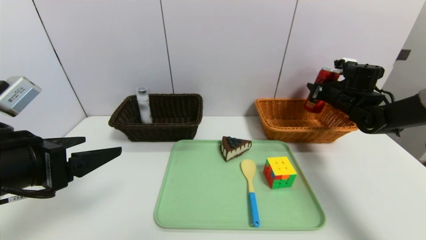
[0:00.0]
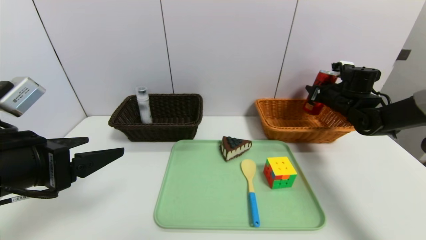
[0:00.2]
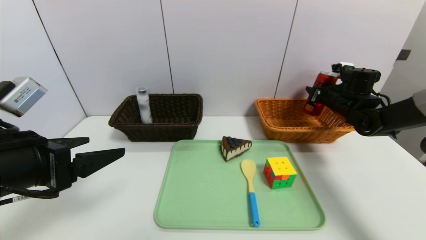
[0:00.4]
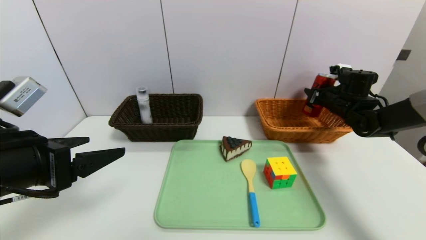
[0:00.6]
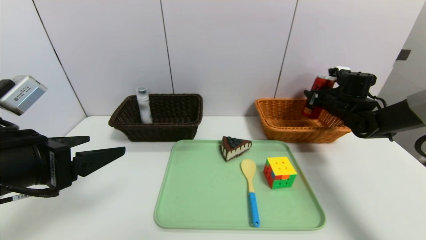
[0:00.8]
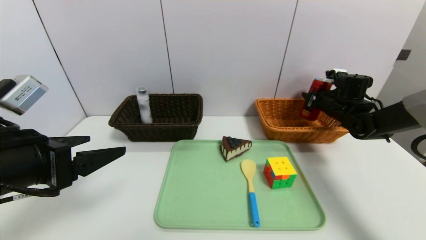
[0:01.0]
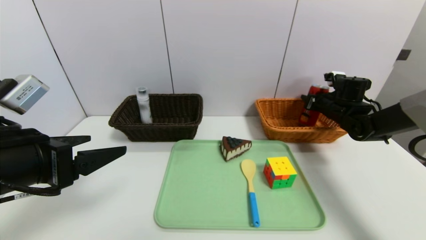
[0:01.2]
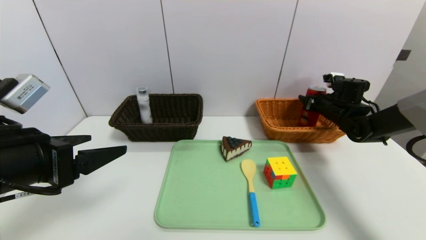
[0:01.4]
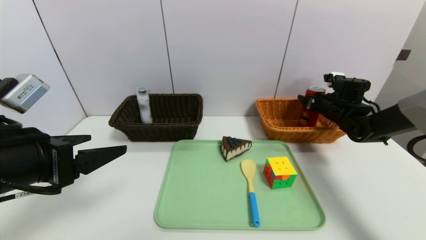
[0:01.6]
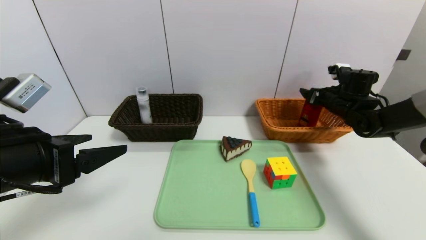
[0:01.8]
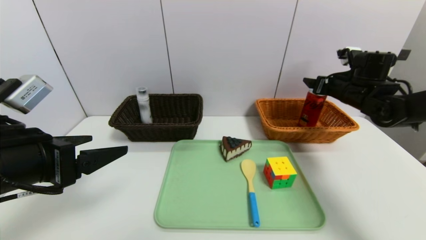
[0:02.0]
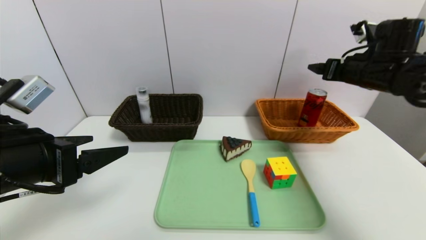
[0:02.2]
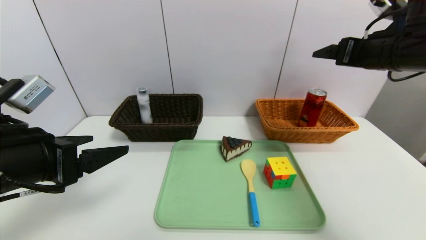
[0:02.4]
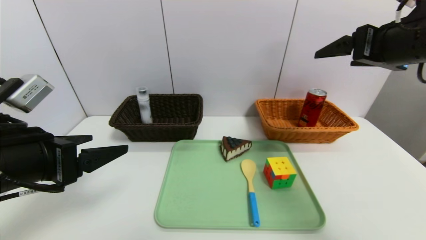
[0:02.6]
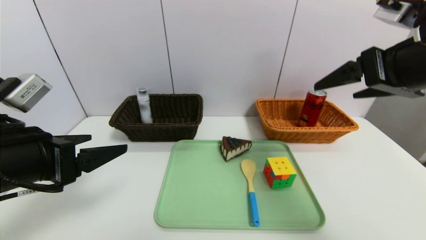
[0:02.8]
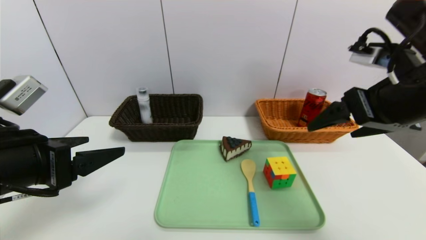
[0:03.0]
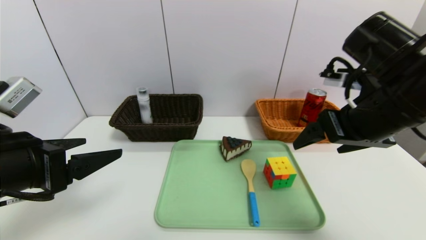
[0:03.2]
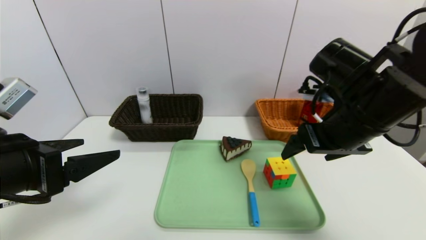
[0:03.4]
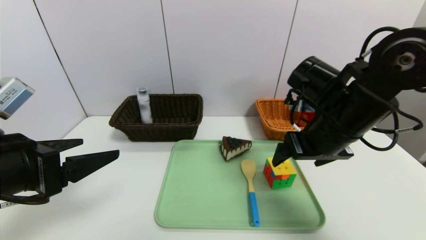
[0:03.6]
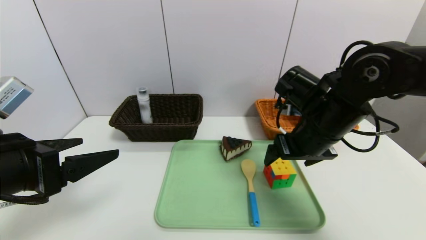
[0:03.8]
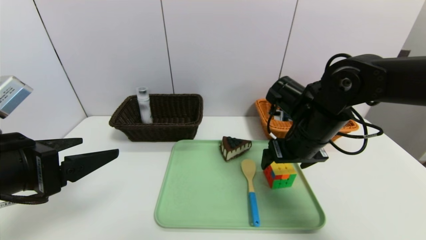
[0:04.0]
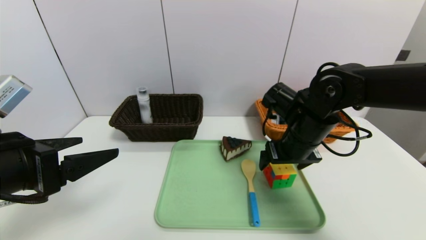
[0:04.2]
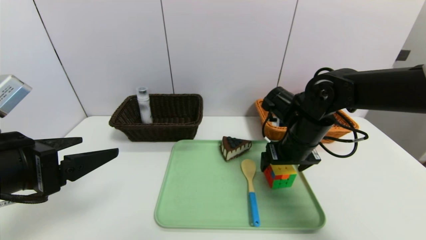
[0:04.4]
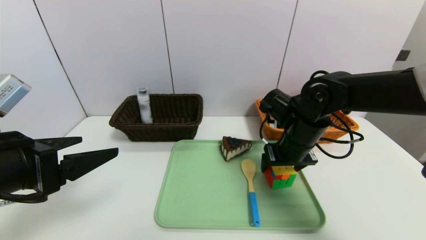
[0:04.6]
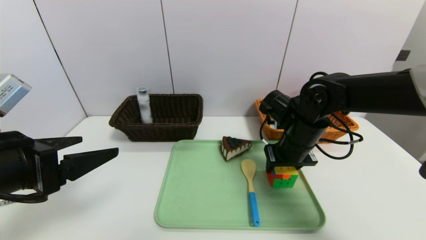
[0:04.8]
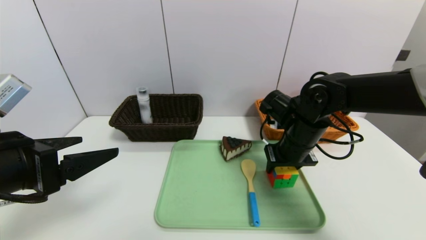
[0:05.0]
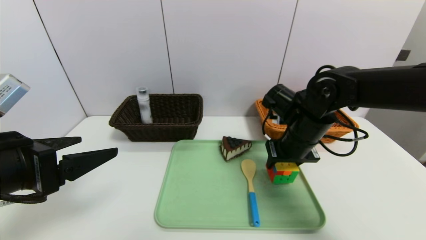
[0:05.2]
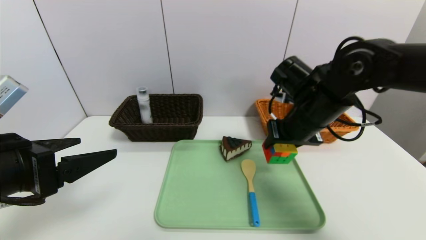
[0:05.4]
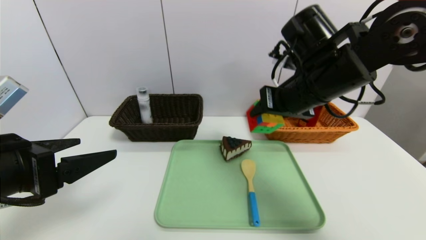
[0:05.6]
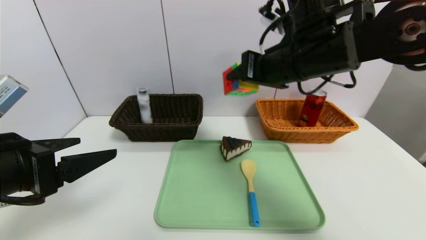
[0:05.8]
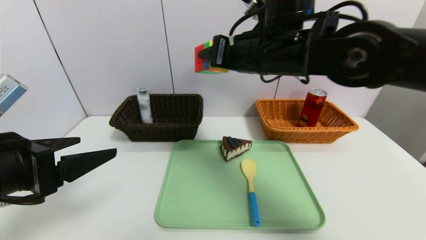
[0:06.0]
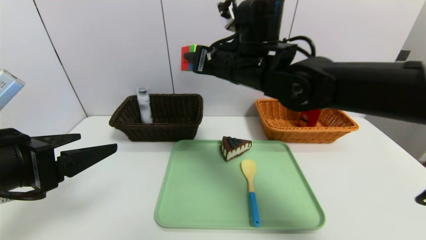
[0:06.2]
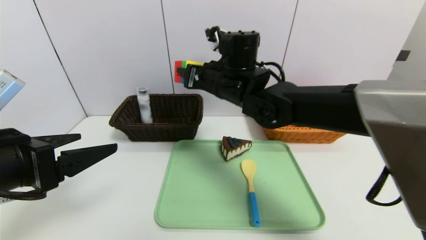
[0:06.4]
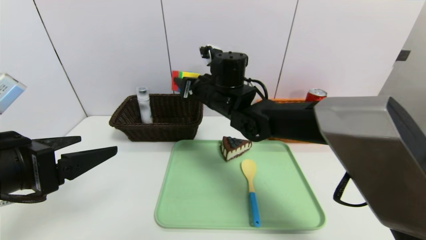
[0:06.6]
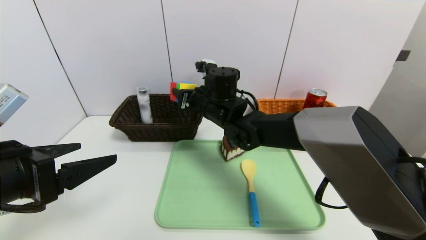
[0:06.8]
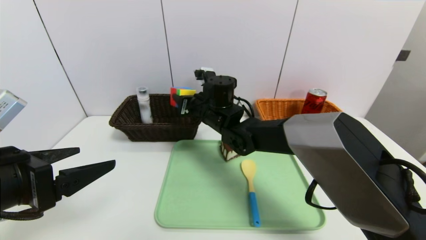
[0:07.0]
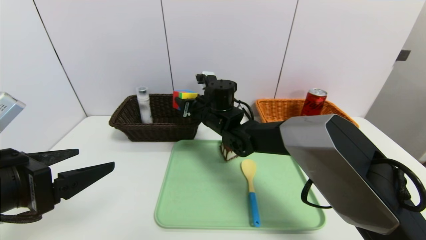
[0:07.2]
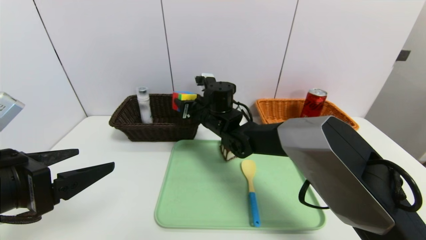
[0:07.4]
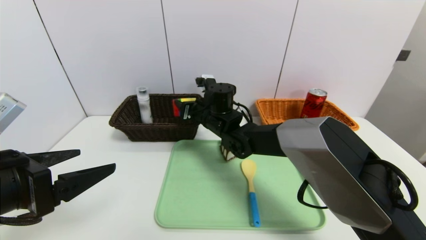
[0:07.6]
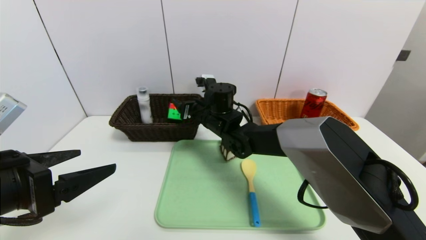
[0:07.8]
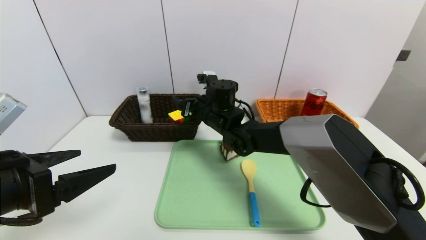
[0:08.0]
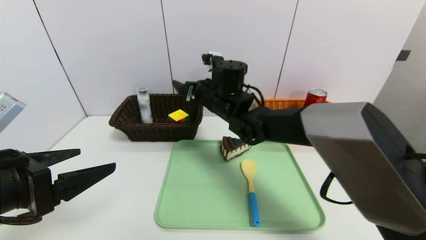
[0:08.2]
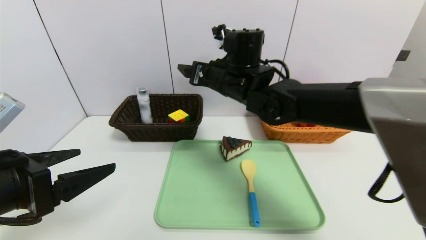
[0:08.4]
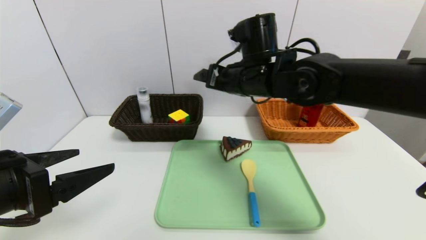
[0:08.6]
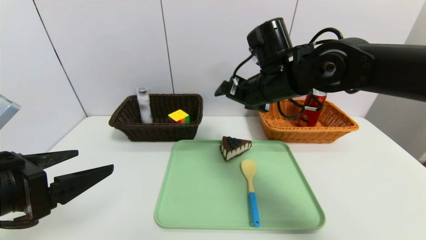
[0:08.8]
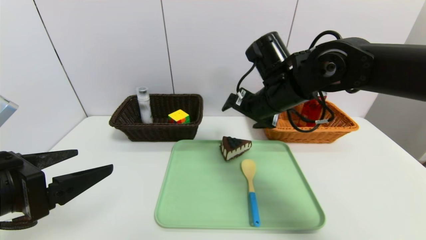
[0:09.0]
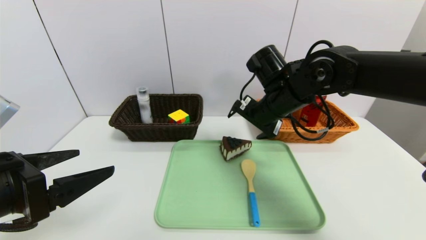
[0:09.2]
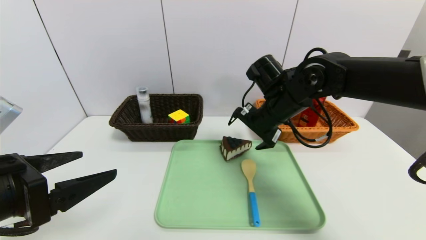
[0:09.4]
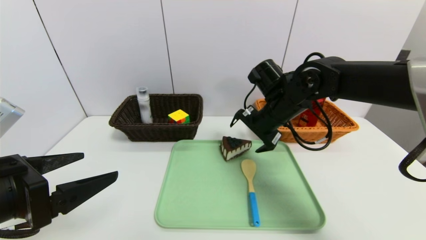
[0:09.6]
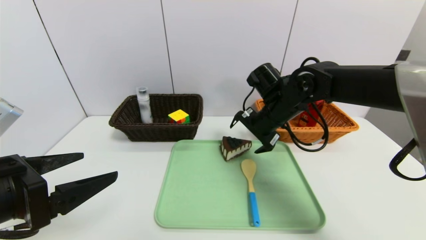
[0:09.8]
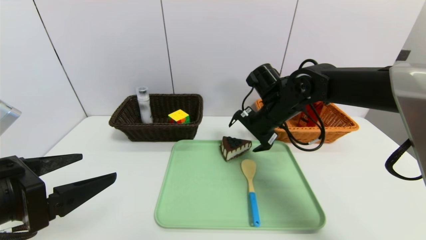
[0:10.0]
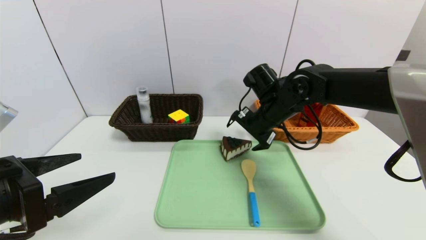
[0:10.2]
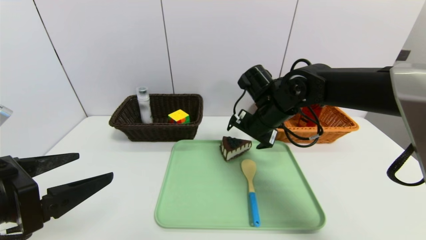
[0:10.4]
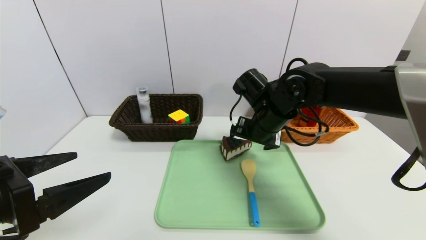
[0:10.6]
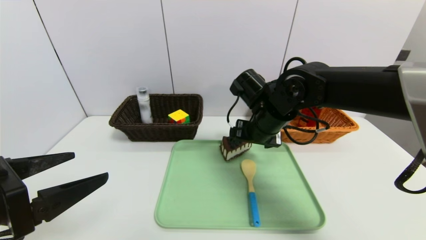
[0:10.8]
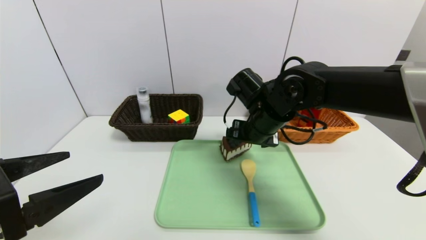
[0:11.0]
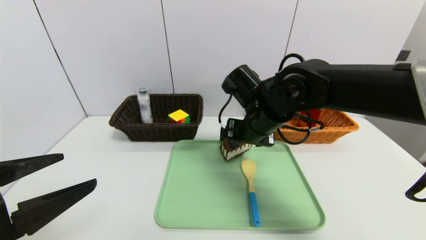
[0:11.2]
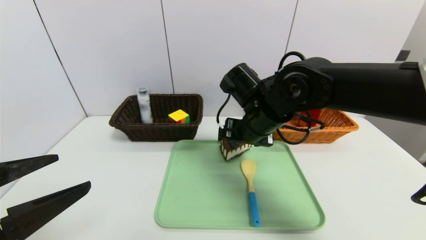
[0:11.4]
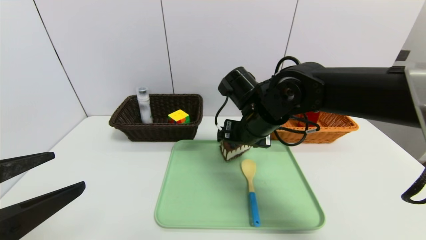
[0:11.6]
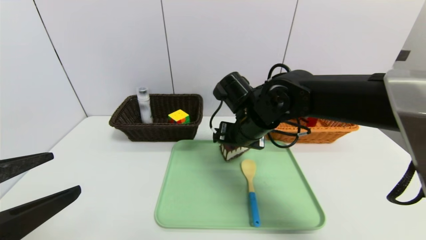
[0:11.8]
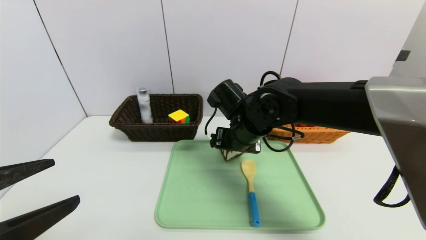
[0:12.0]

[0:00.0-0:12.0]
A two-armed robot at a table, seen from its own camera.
Task of the whole recording: place the food in the right basket with the right gripper, and place the non food items in the left basket with the left gripper.
Step, 0.0 to 2.0 s: Grasp the canned cola and put it in the right basket.
0.0 to 1.6 s: The right gripper opens its fingers.
1.6 to 3.0 s: The right gripper goes approximately 30 cm backward, upward and to the left.
3.0 to 4.4 s: The right gripper is displaced downward, forward and to the left by some 20 cm.
4.4 to 6.0 s: The right gripper goes approximately 20 cm upward and to the left, and closes.
6.0 to 7.6 s: The right gripper goes roughly 20 cm downward, forward and to the left.
7.6 to 9.0 s: The right gripper is displaced to the right, upward and backward by about 15 cm, and opens its fingers.
9.0 to 10.4 s: The right gripper shifts roughly 5 cm downward.
10.4 to 12.0 s: The right gripper shifts approximately 5 cm to the left.

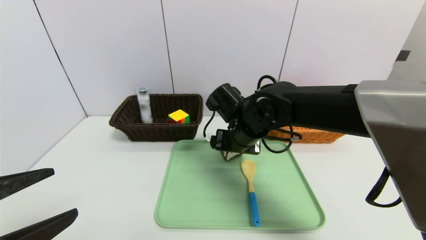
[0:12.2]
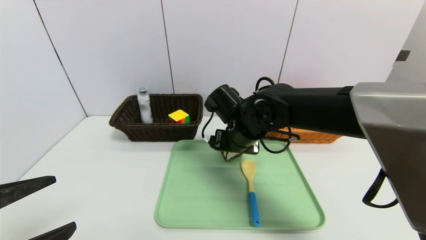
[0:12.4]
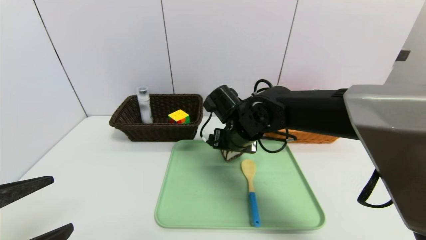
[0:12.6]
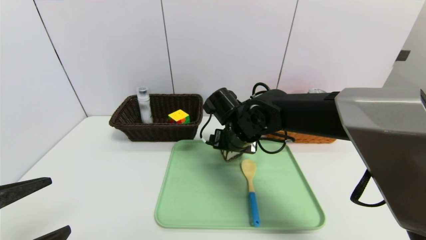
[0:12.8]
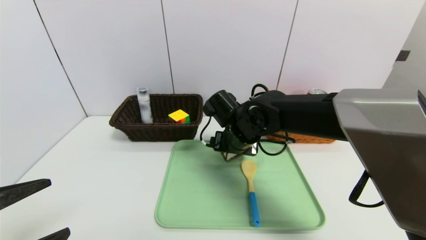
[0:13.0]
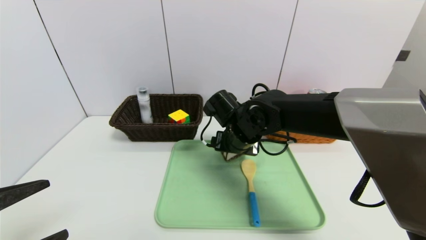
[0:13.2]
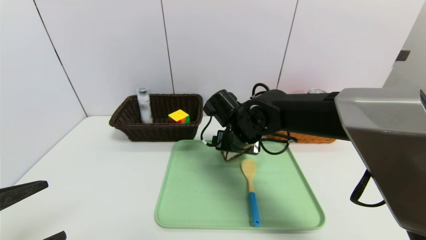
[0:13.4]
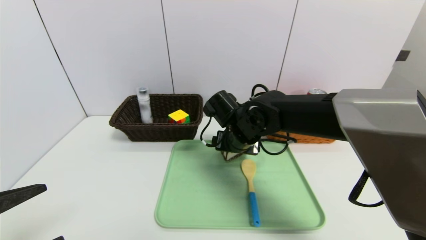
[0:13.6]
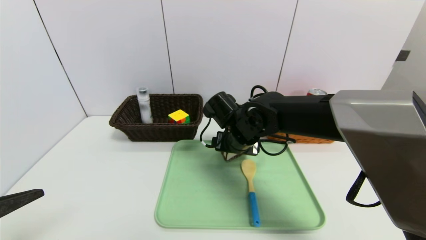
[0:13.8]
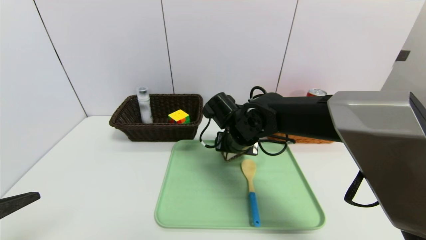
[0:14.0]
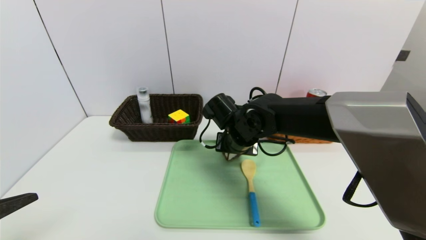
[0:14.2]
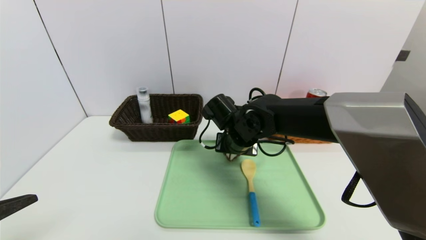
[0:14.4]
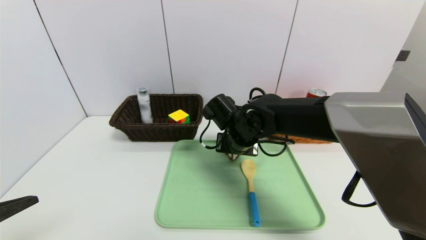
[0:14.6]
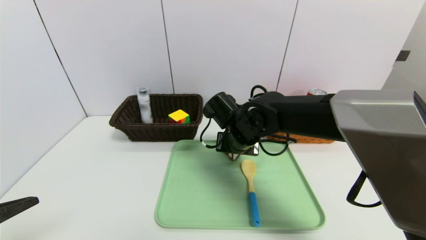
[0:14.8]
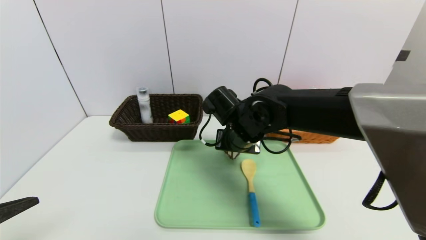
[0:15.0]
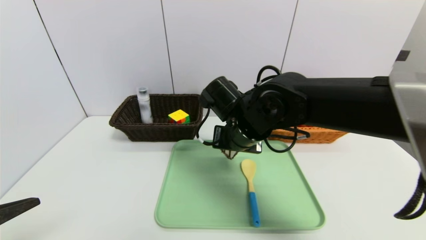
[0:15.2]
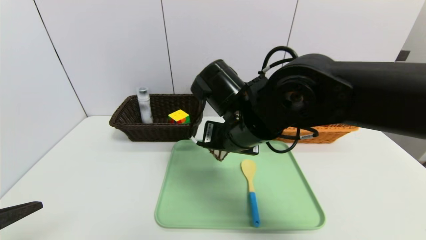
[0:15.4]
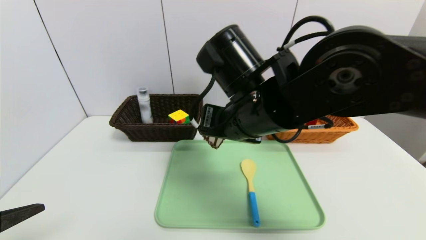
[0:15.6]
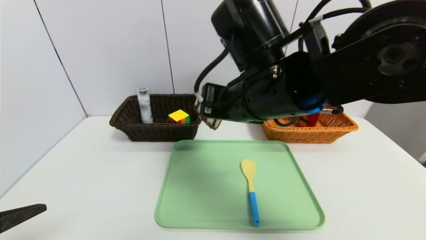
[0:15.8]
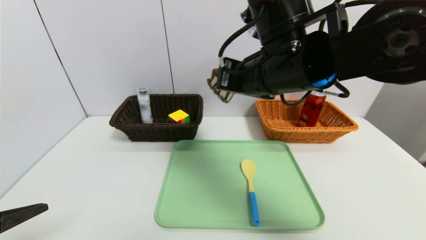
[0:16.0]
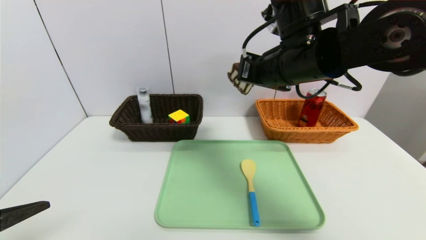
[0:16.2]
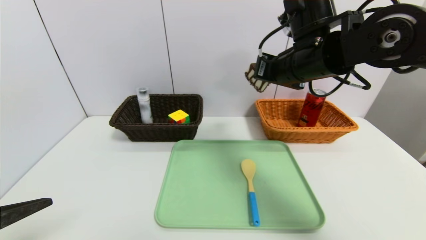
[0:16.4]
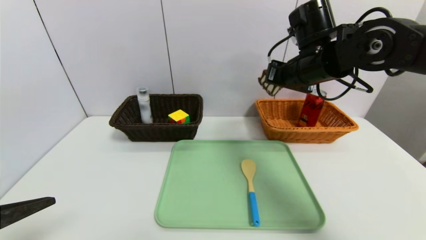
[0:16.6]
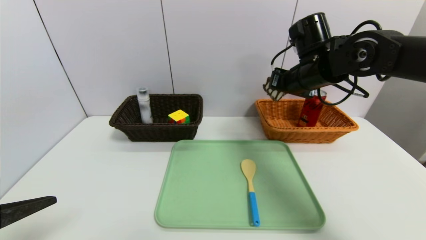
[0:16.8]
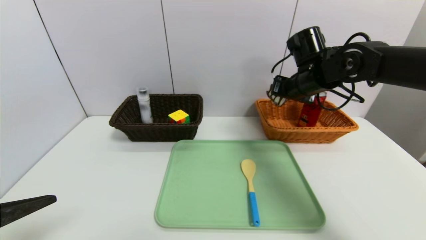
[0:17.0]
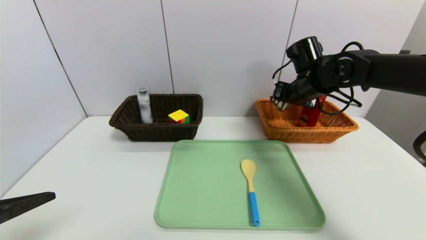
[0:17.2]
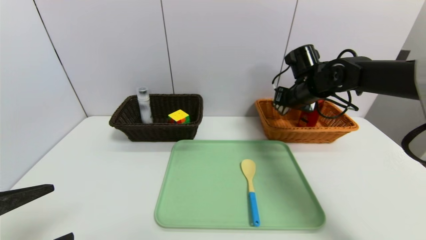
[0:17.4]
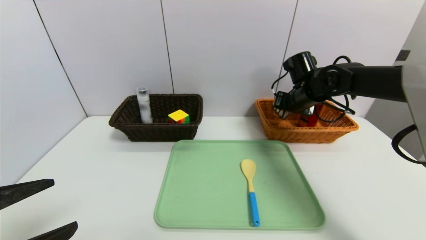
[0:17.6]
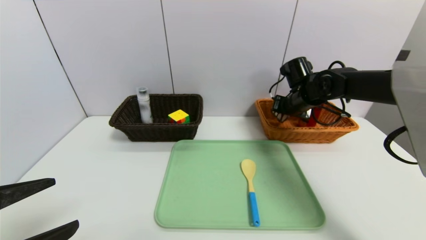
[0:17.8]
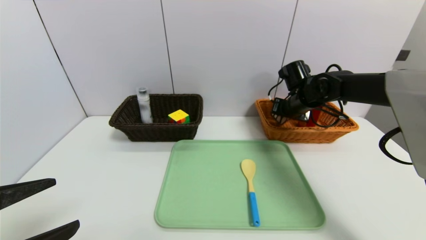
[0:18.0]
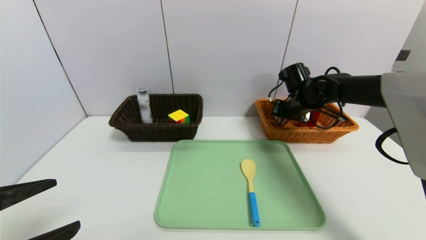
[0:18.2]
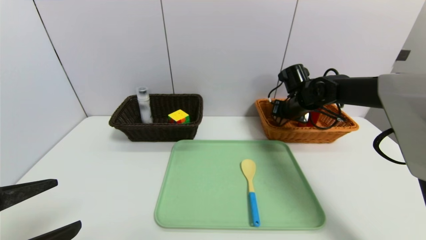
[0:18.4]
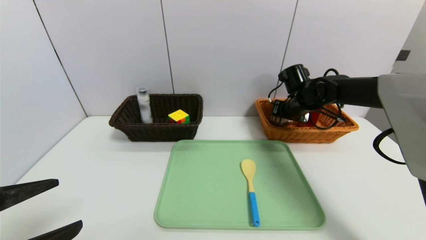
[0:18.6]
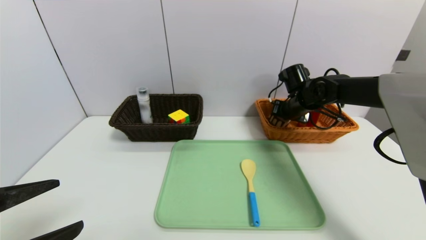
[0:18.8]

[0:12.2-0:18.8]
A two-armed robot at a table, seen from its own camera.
Task of the whole recording: place the food in the right basket with the right gripper, and place the non food items in the left basket with the left gripper.
12.2 to 13.8 s: The grippers stay close to where they were, moving slightly.
13.8 to 15.4 s: The right gripper goes some 10 cm upward and backward, and closes.
15.4 to 17.2 s: The right gripper is displaced to the right and forward by roughly 25 cm.
17.2 to 18.8 s: The right gripper shifts some 5 cm downward, and opens.
